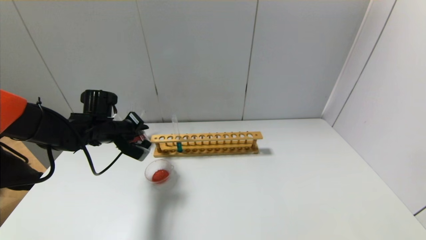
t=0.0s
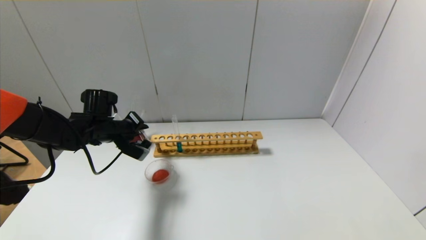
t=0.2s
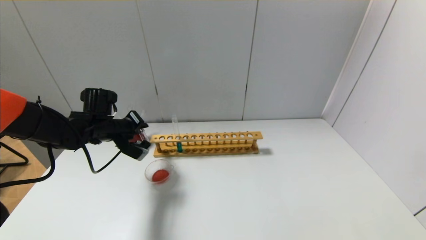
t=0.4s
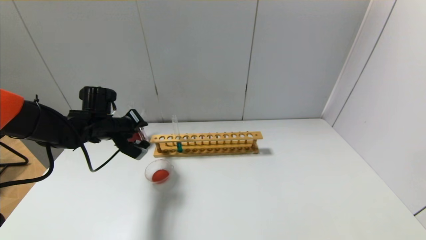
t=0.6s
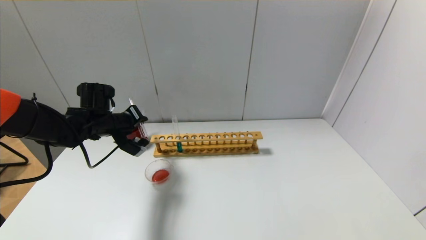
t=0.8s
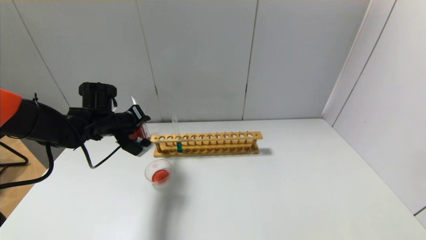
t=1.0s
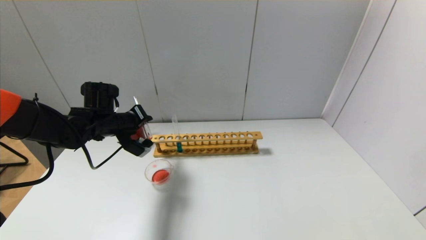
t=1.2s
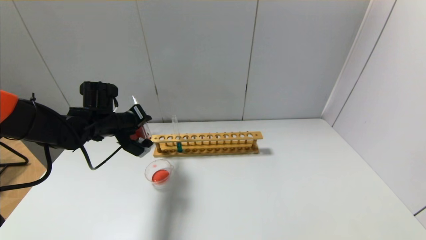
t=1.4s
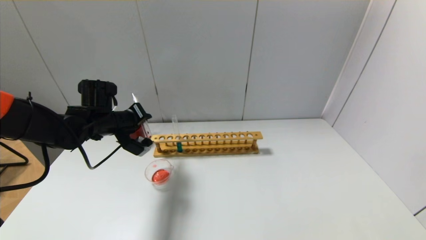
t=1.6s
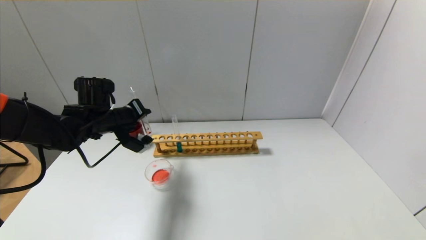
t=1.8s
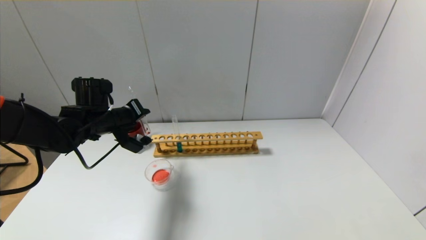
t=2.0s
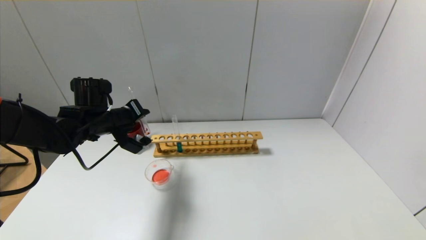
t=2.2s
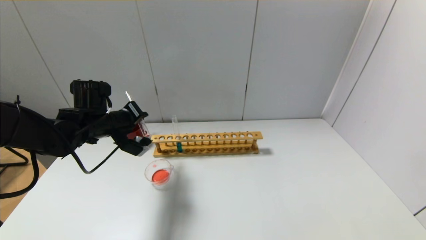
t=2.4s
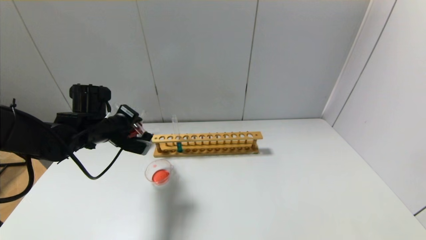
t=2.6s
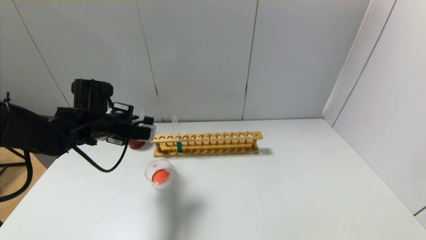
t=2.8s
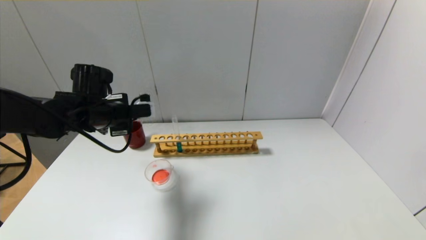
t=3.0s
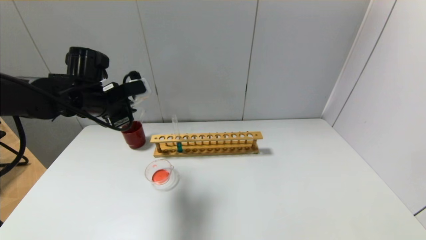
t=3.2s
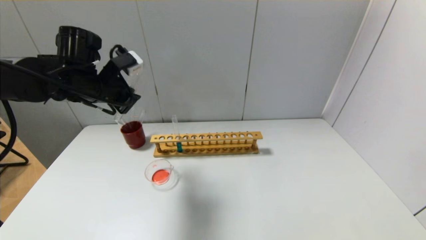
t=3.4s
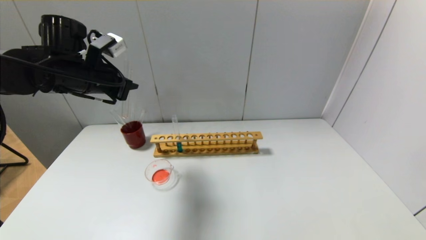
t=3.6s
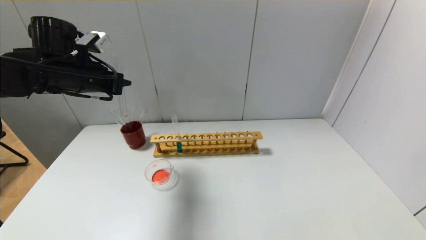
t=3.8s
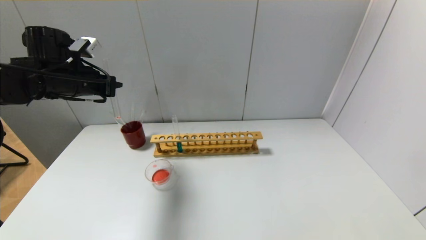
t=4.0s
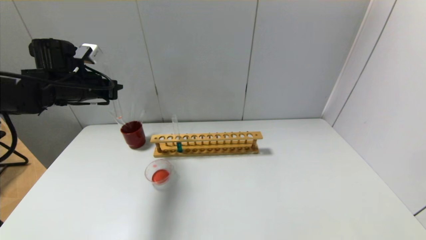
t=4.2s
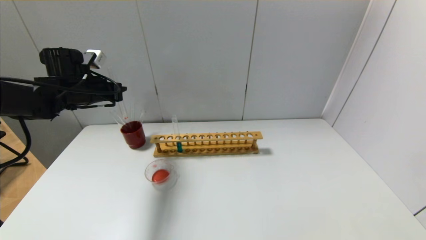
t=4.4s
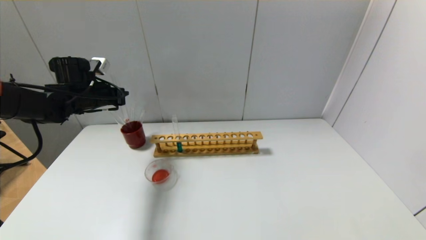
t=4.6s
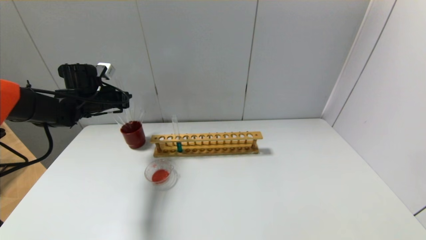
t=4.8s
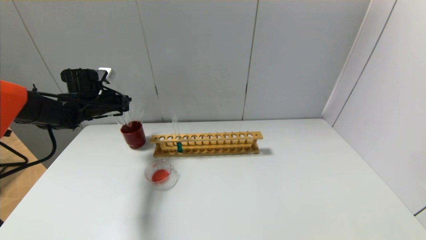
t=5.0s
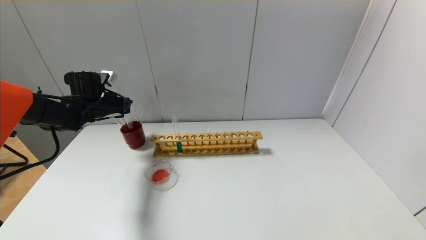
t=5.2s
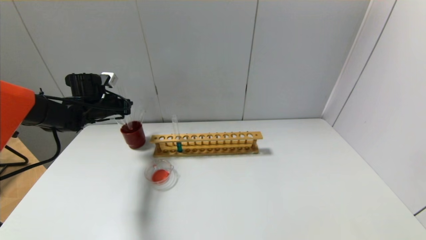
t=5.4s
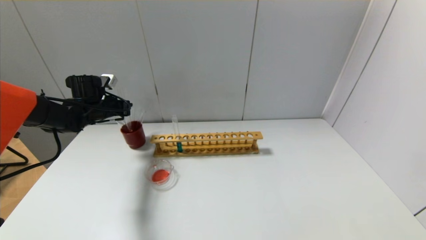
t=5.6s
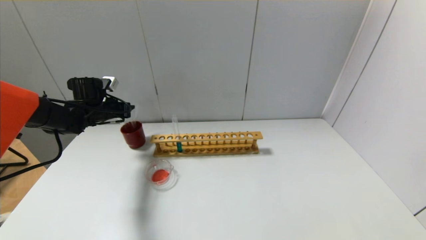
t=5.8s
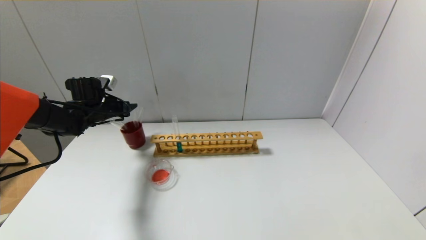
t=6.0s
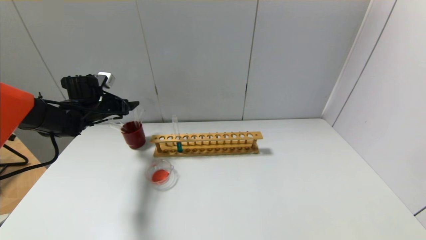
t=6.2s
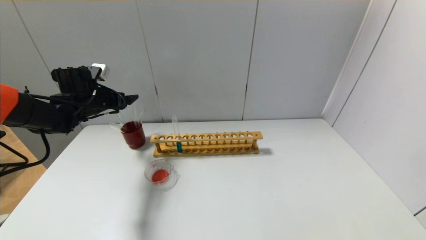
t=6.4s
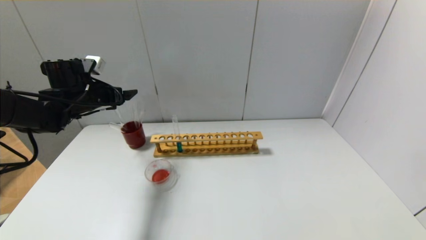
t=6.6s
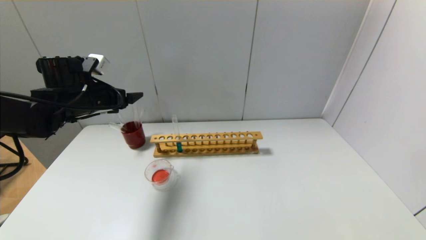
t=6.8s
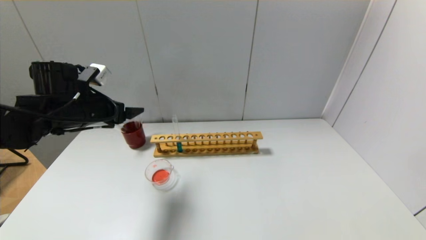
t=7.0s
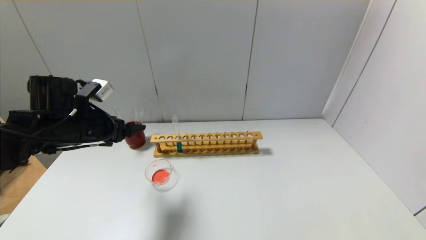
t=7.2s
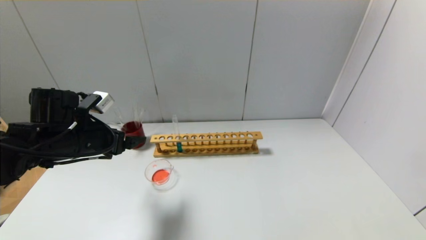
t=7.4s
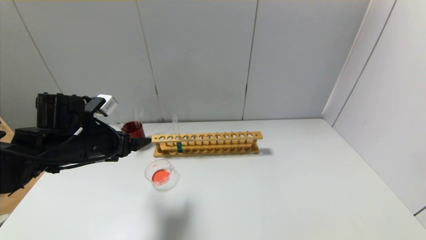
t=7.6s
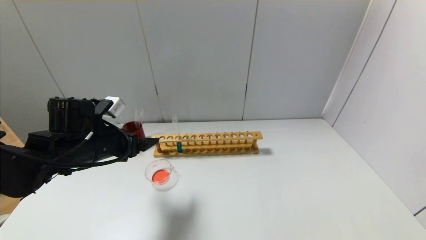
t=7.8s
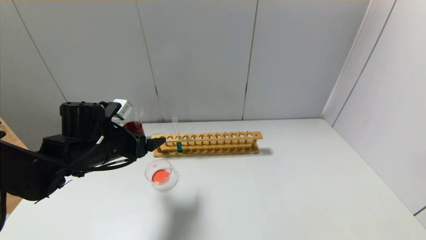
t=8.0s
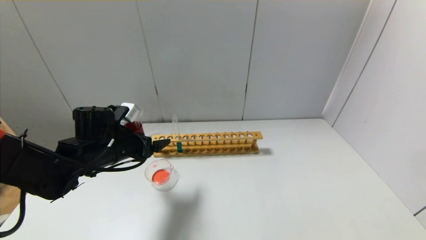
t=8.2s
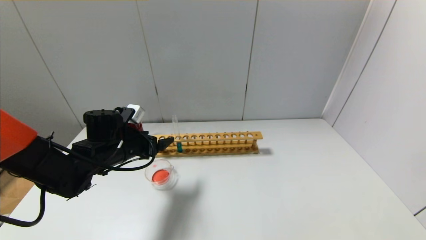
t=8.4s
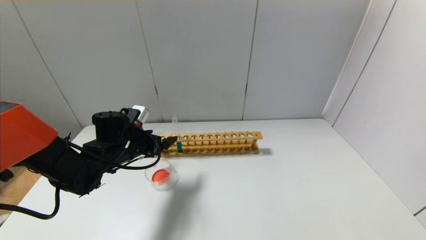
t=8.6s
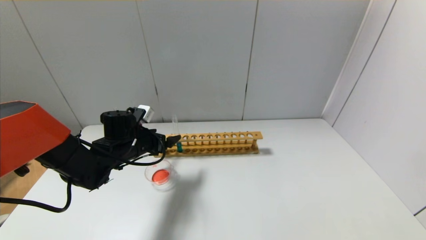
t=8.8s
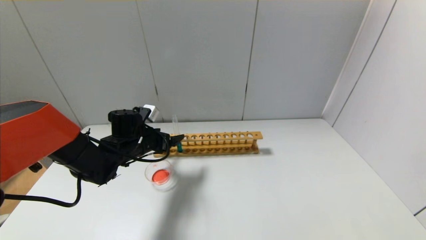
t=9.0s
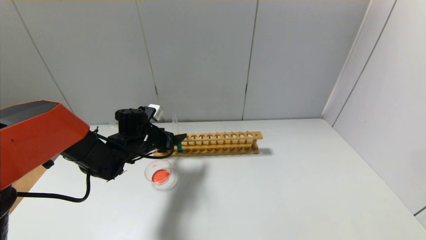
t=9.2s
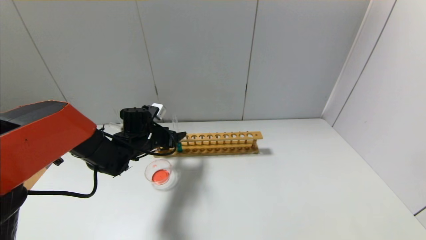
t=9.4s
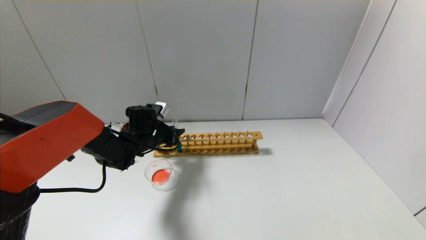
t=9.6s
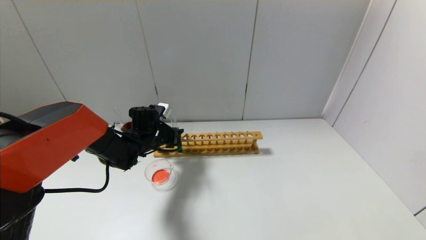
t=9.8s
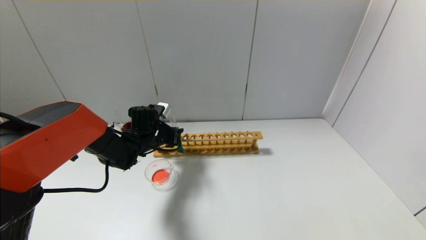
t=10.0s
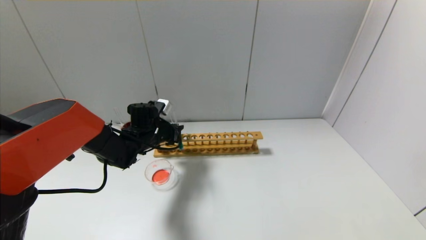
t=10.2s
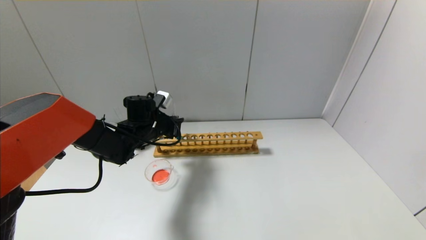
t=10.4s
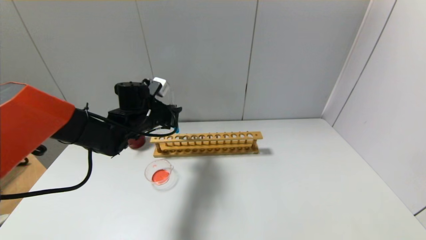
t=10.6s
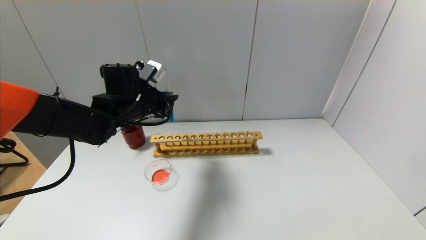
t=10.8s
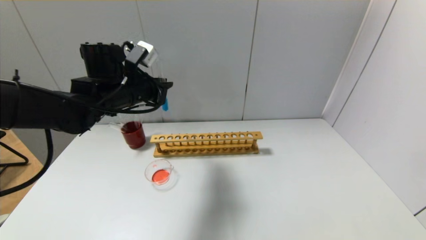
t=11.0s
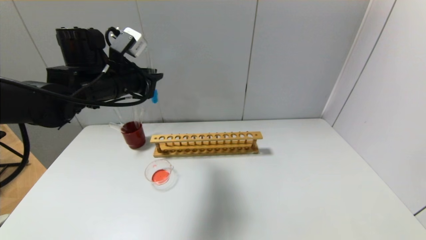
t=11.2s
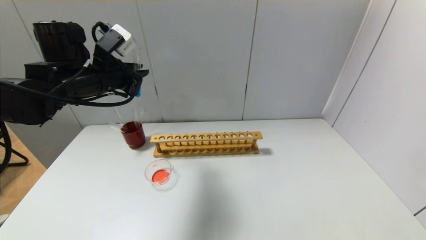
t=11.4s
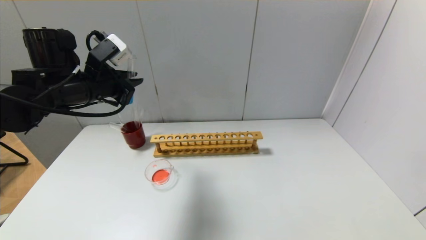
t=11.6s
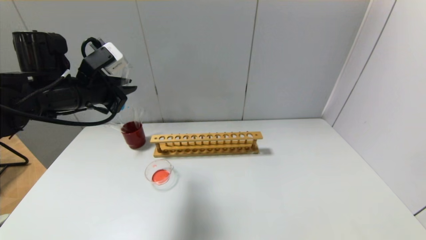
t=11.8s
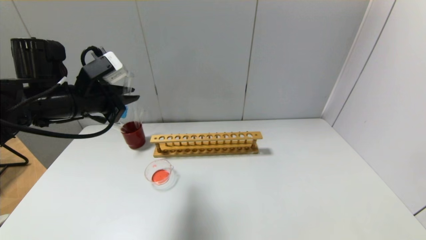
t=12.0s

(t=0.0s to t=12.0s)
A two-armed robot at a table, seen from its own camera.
Step, t=0.0s - t=2.0s: Pour the red reagent into the graduated cylinder with the left gripper.
Step, t=2.2s - t=6.0s: Place the test tube into the brown cup with the left gripper.
Step, t=6.2s - t=9.8s: Grasp the blue reagent with the left gripper.
t=0.0s - t=1.6s: The grippers move only a little.
t=3.0s - t=4.4s: The left gripper moves to the left and forward, some 10 cm, and reaches approximately 10 cm upward, then returns.
t=4.4s - t=6.0s: The left gripper is displaced downward by some 10 cm, and opens its fingers.
t=6.0s - t=7.6s: The left gripper goes some 20 cm backward and to the right, and opens up.
t=7.6s - t=9.0s: The left gripper shifts approximately 15 cm forward, downward and to the right.
t=9.0s - t=10.4s: The left gripper ends up about 5 cm from where it was, and closes its fingers.
t=10.4s - t=12.0s: The left gripper heads upward, backward and to the left, covering roughly 20 cm.

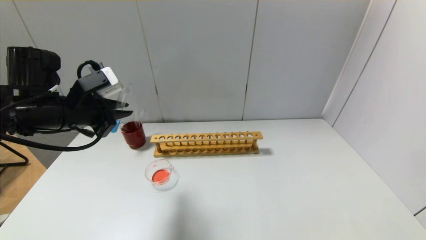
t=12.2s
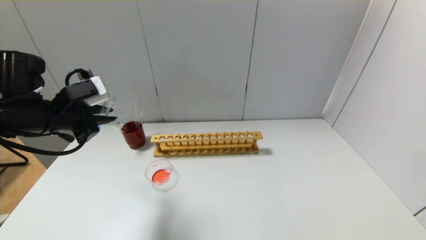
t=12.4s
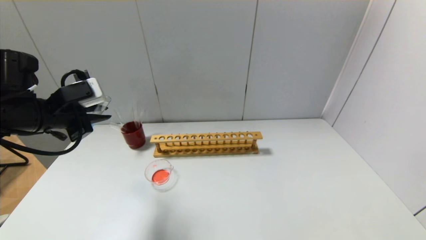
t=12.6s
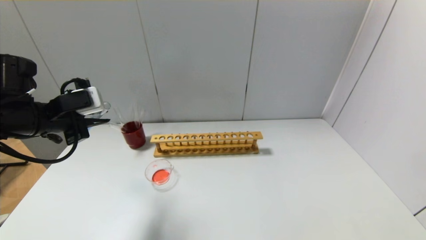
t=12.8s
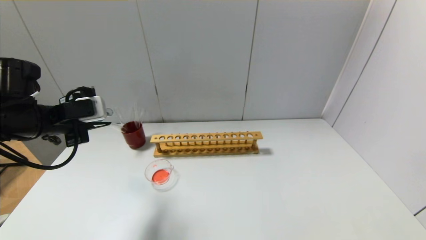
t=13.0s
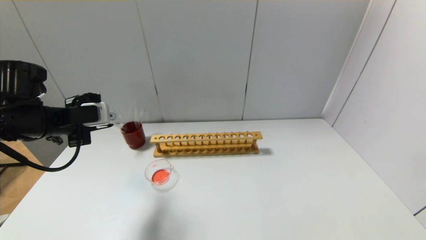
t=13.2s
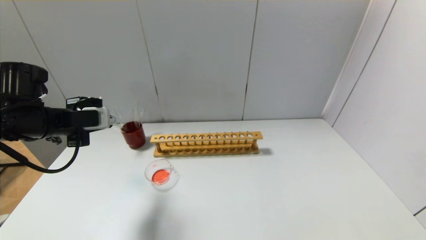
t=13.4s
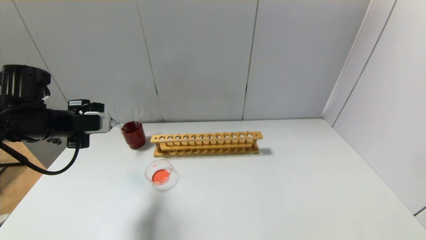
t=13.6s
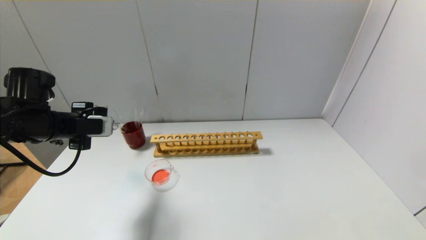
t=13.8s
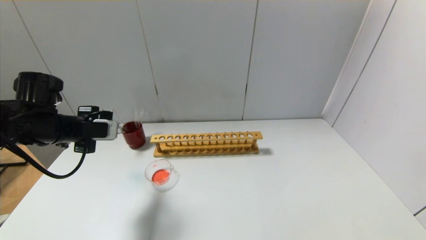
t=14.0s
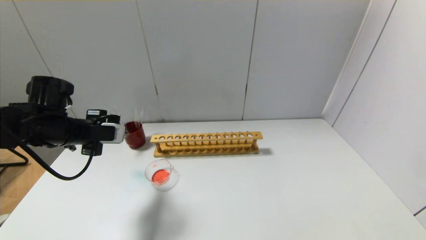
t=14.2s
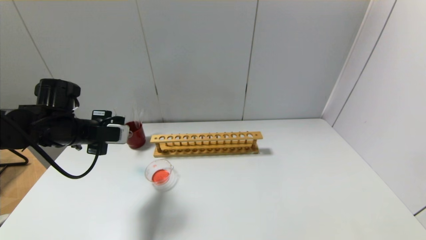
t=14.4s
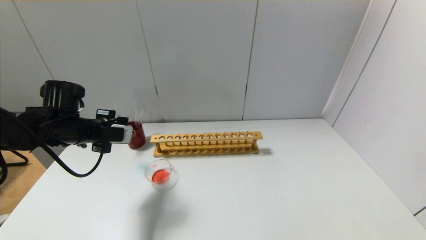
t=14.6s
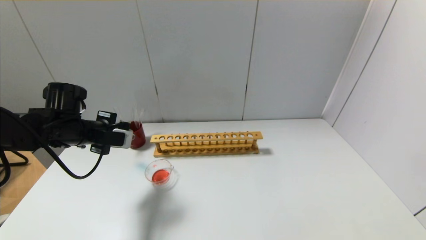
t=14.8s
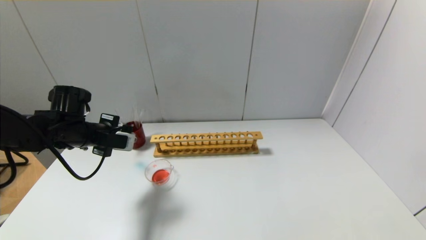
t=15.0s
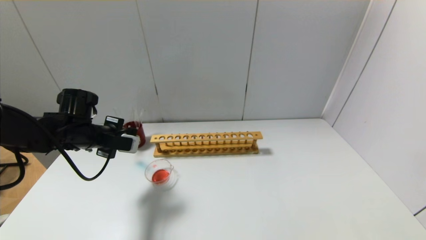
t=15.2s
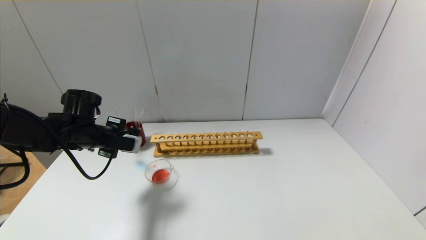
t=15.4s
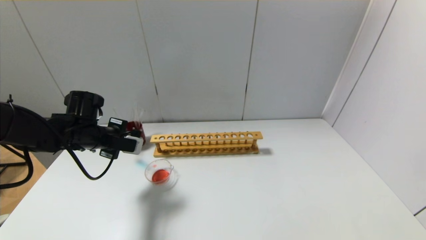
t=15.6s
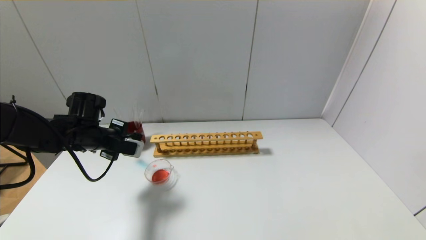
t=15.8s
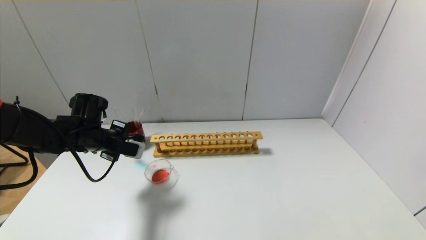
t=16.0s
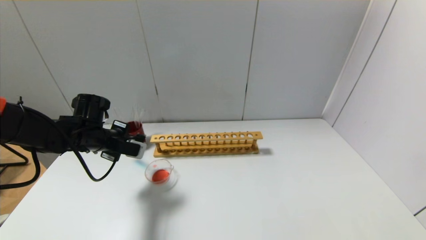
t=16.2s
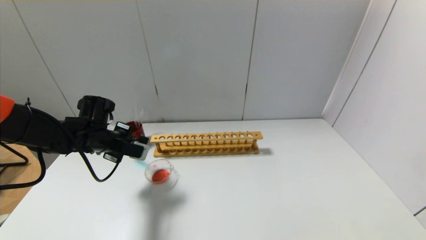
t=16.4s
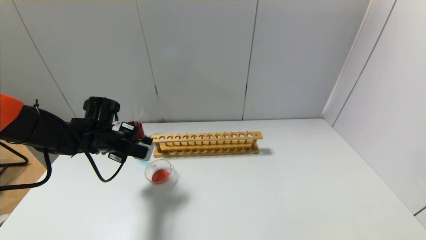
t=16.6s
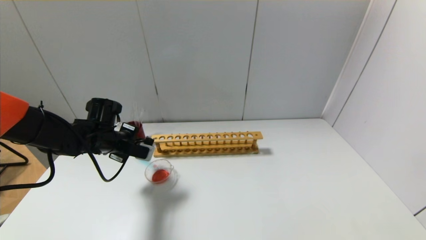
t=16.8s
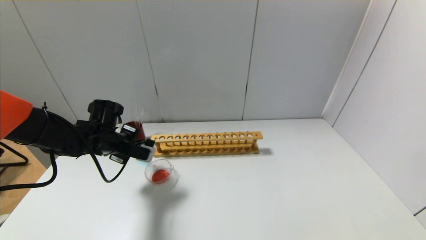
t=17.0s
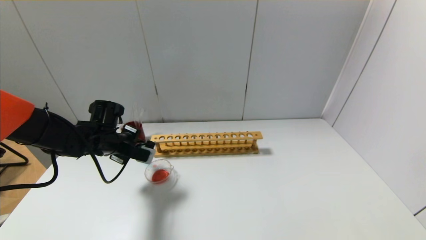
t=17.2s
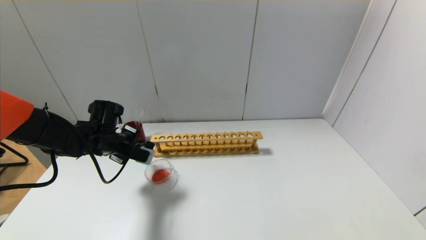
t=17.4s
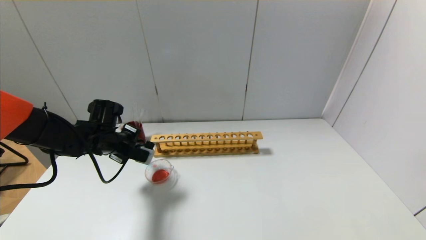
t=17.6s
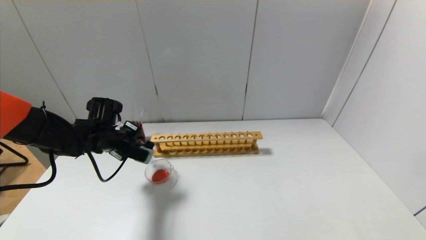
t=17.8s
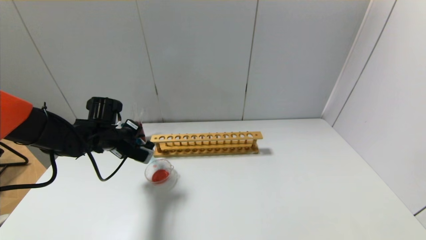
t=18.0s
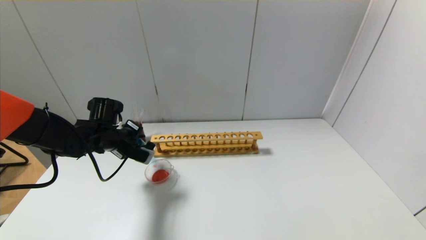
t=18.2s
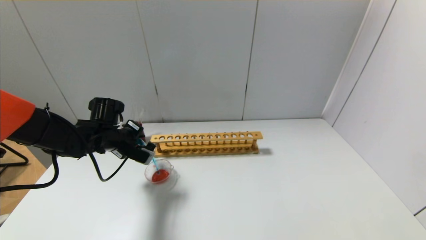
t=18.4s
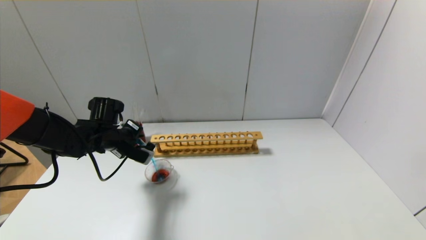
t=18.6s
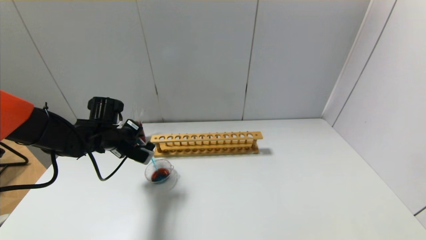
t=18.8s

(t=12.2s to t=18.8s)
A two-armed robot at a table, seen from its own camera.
t=12.2s - t=13.8s: The left gripper goes about 5 cm to the left.
t=13.8s - t=15.4s: The left gripper moves downward, some 5 cm.
t=15.4s - t=17.2s: The grippers stay close to where they were, moving slightly.
t=17.2s - t=18.8s: The grippers move only a little.
